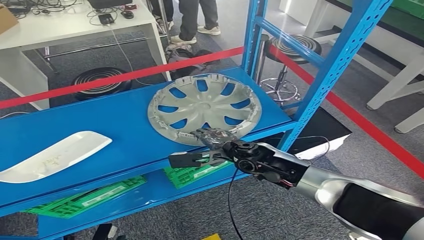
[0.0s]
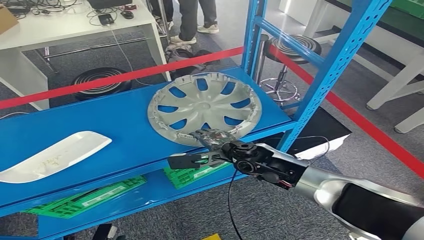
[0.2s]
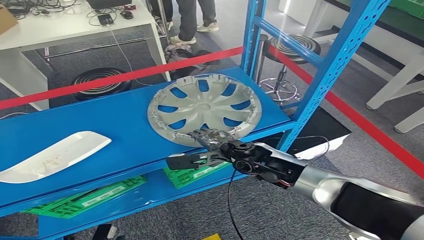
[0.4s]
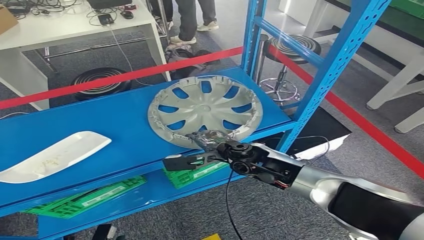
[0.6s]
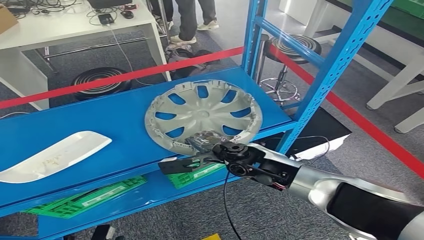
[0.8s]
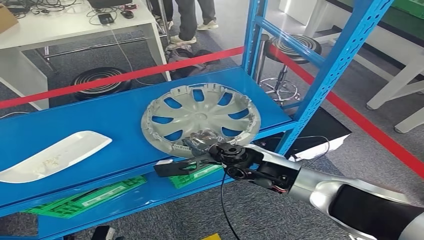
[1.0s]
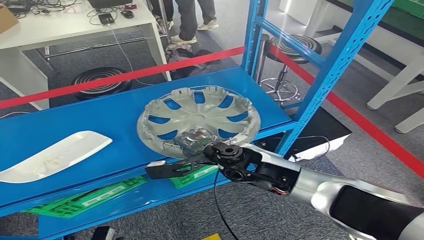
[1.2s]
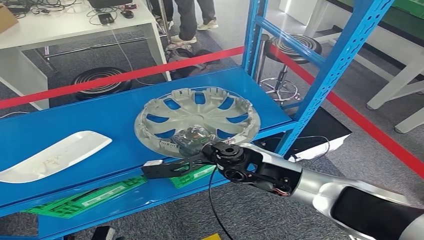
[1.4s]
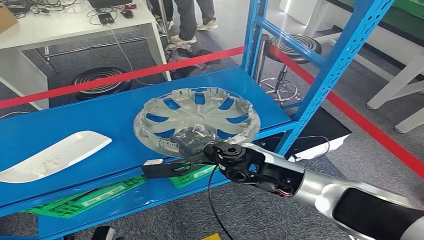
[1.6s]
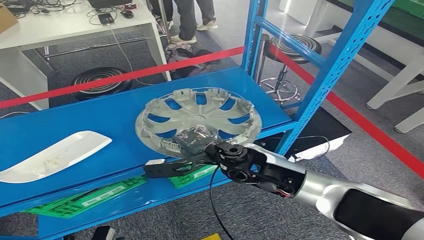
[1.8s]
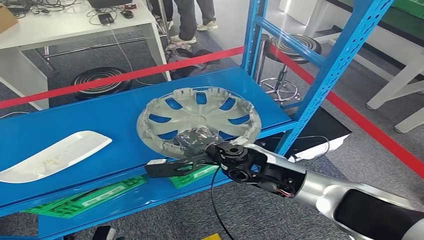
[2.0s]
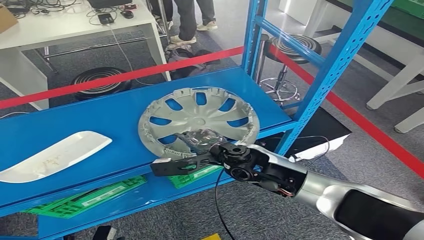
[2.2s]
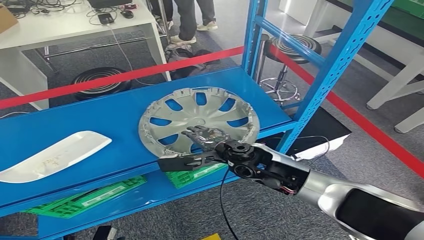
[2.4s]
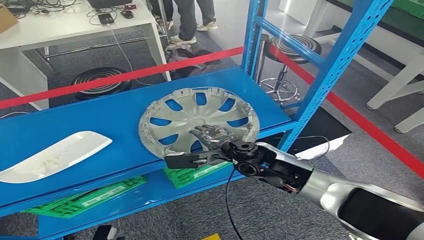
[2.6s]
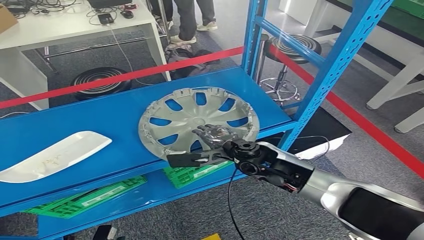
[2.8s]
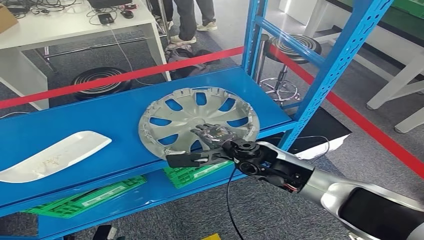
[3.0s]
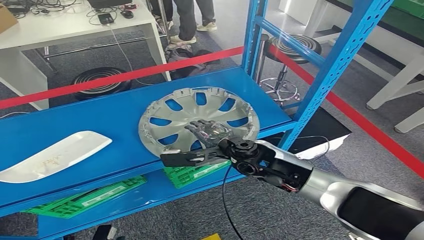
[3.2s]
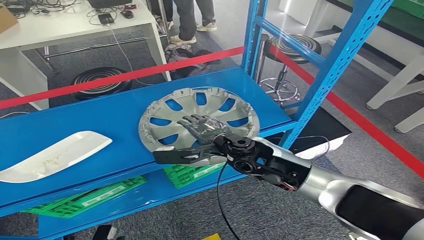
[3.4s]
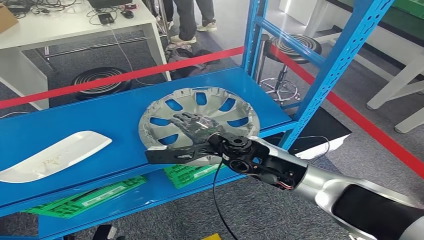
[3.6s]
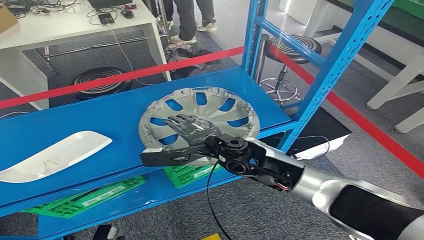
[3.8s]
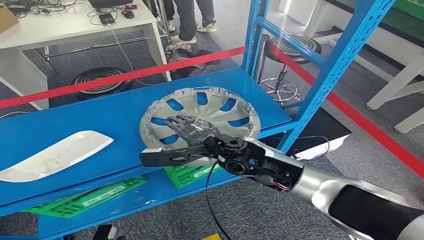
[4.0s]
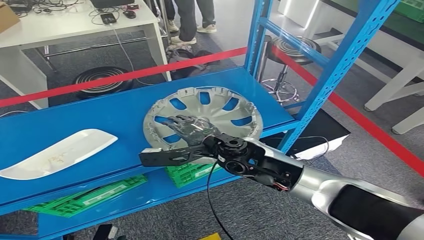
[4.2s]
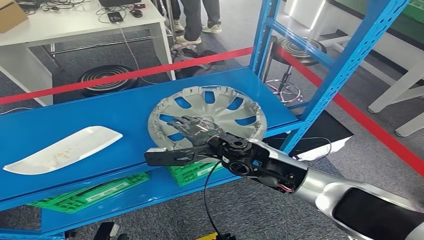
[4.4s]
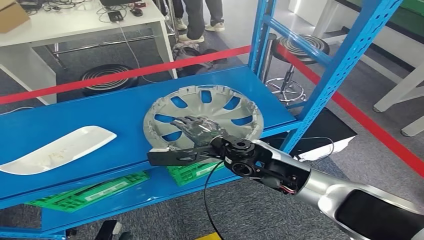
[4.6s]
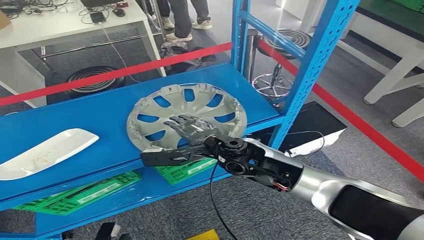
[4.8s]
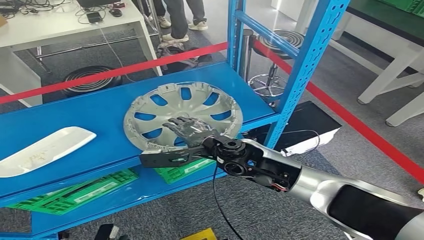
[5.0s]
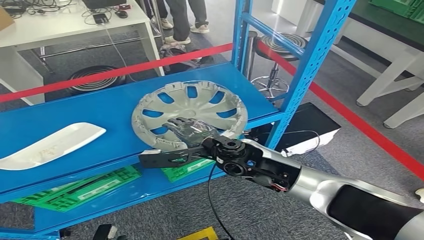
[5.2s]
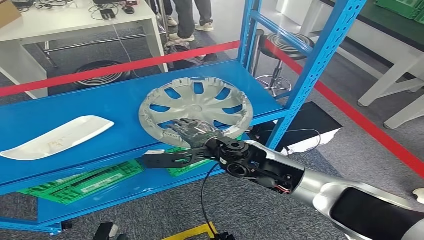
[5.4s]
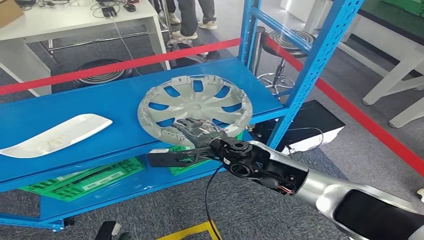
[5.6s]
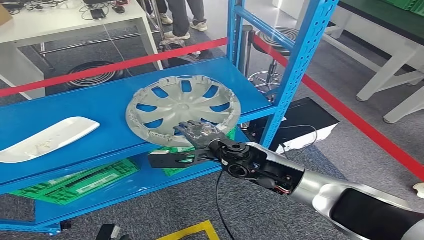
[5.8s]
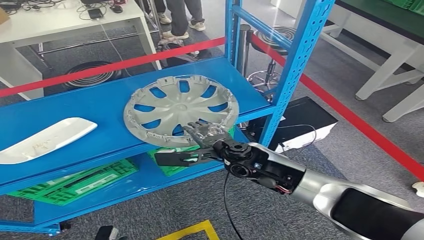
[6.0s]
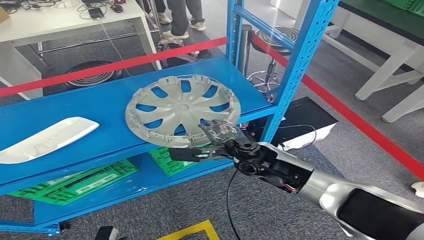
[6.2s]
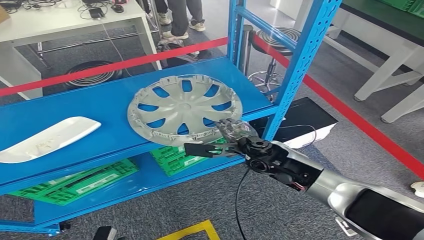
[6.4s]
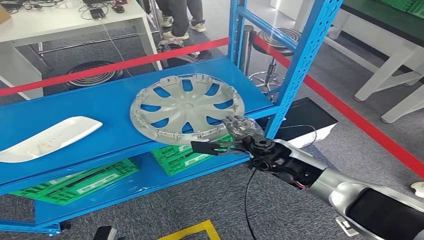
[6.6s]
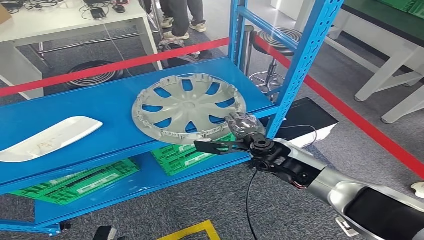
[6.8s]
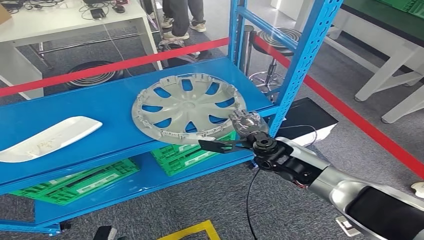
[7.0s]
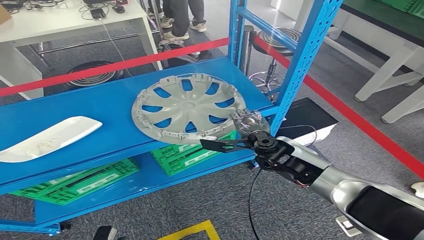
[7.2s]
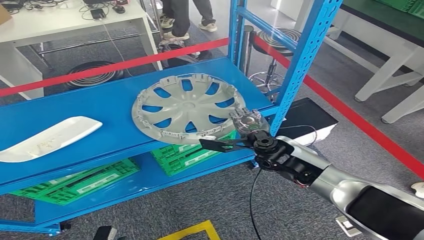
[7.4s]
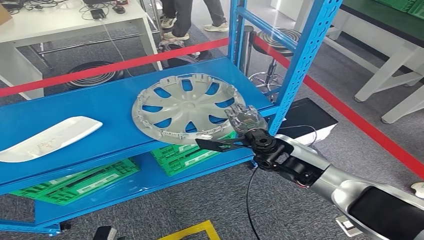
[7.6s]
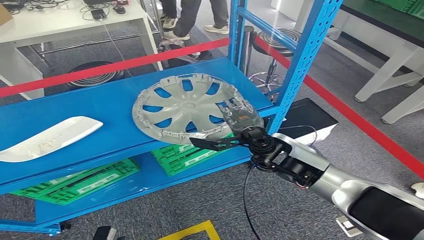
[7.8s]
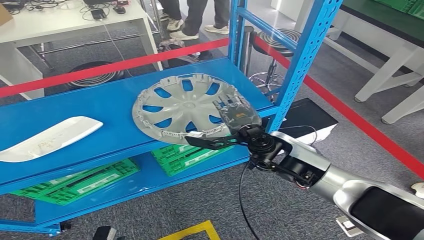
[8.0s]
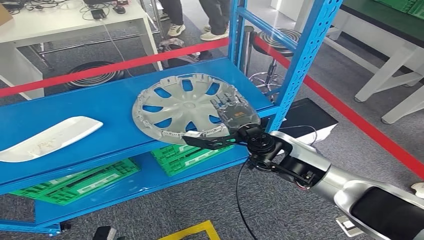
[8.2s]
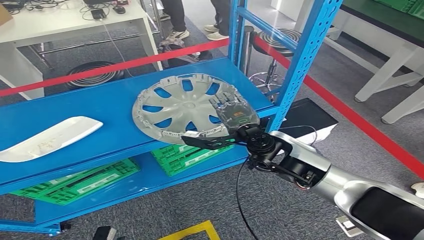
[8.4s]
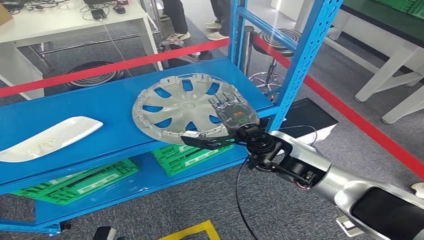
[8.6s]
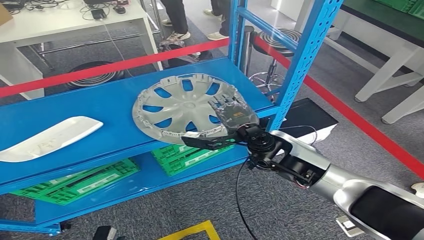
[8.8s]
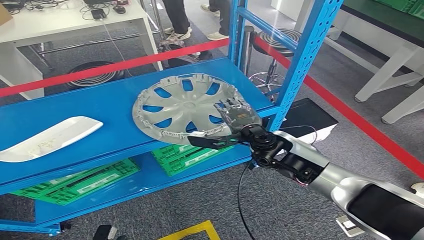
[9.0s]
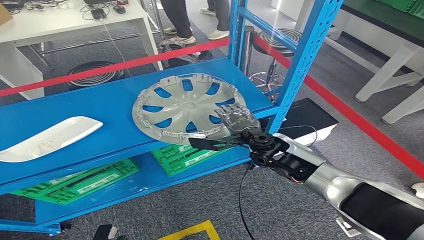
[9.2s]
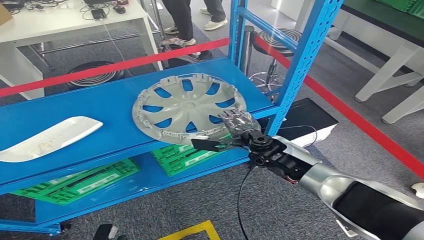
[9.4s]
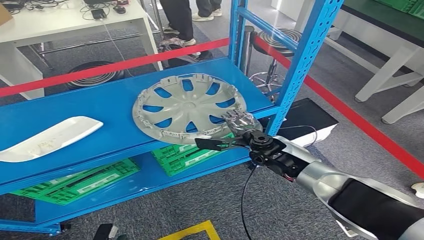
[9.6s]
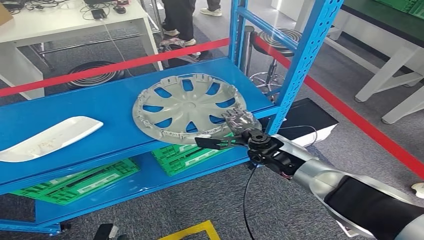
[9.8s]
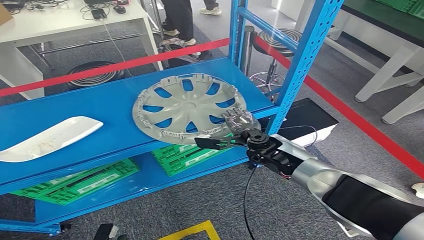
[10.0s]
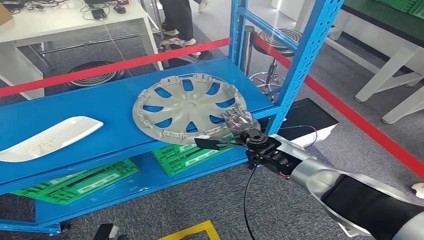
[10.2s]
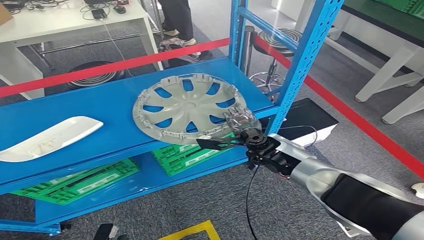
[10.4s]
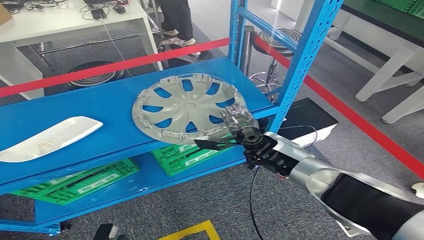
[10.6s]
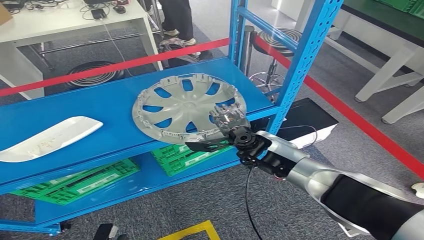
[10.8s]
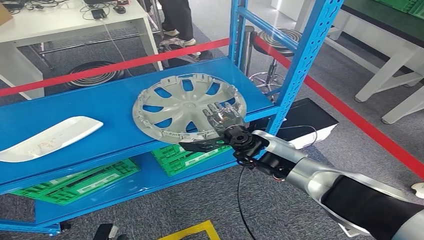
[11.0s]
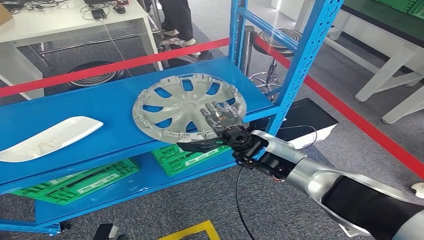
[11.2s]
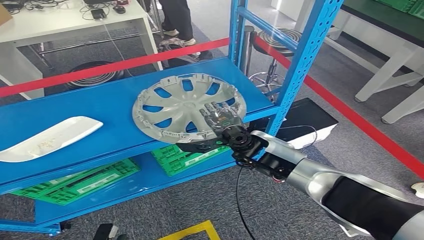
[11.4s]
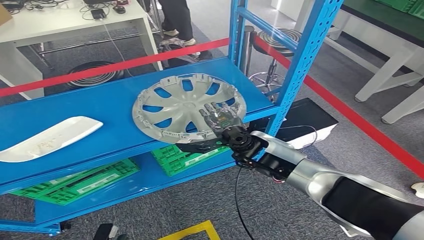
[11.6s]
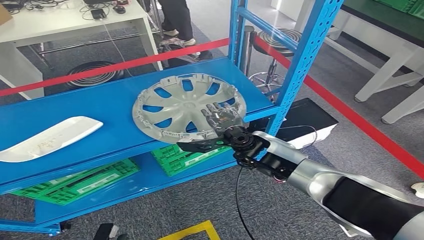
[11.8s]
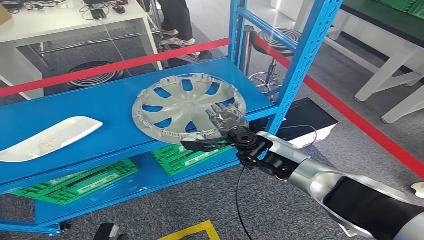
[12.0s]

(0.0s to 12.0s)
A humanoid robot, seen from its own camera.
0.0s - 1.6s: The right hand travels upward by some 5 cm.
1.6s - 3.0s: The right hand moves some 5 cm.
7.6s - 9.0s: The hands stay close to where they were, moving slightly.
9.0s - 10.4s: The right hand is displaced downward by some 5 cm.

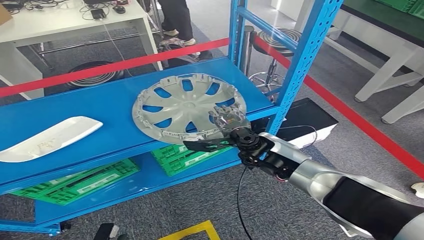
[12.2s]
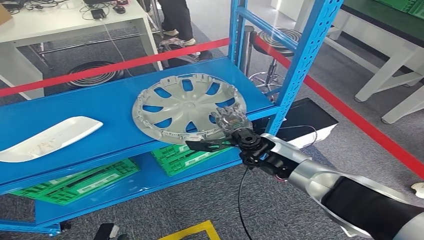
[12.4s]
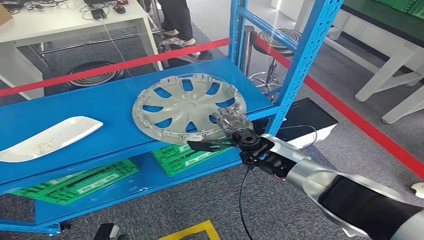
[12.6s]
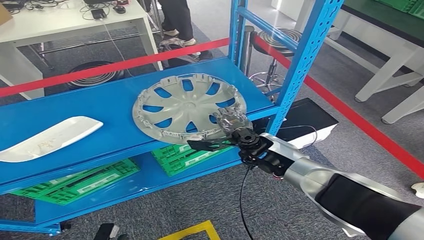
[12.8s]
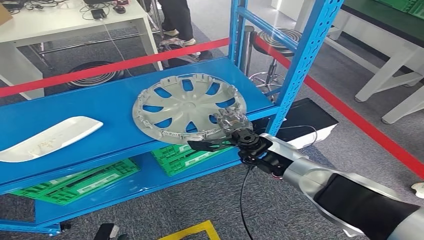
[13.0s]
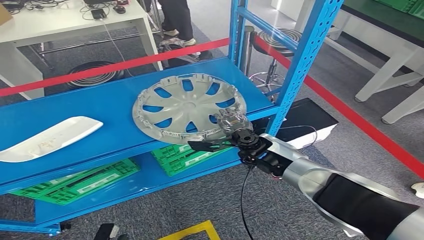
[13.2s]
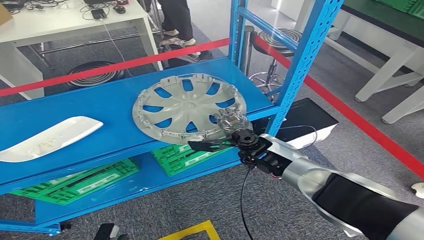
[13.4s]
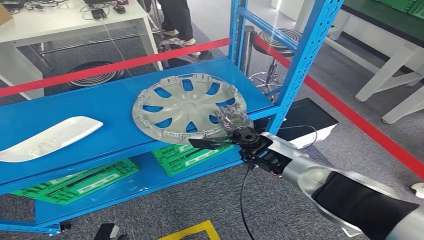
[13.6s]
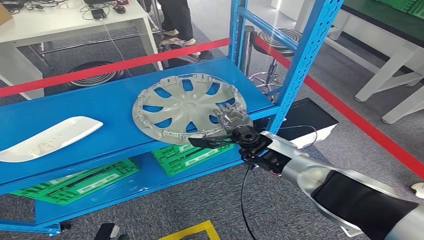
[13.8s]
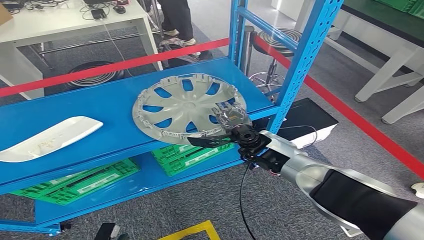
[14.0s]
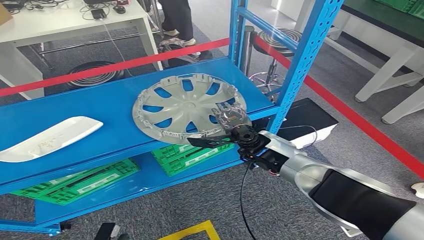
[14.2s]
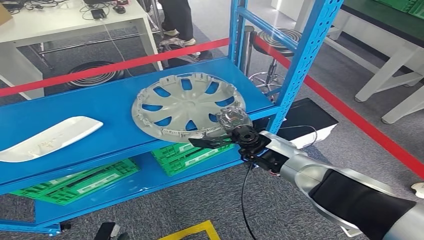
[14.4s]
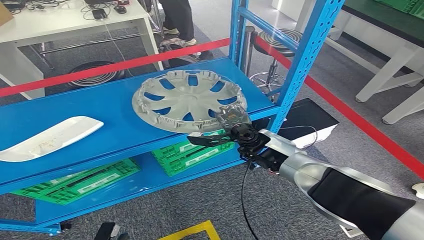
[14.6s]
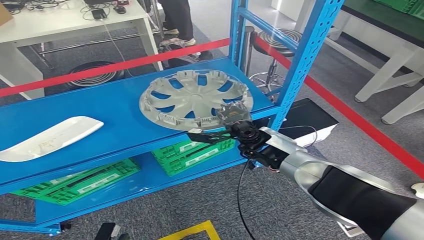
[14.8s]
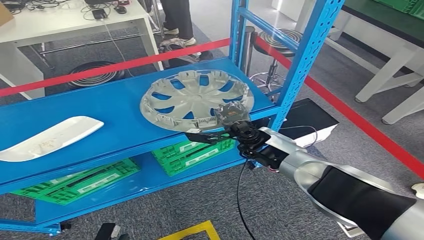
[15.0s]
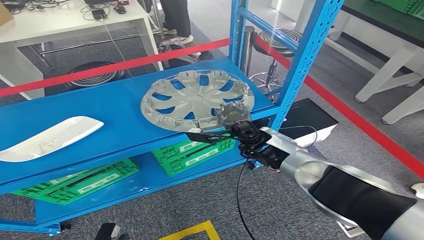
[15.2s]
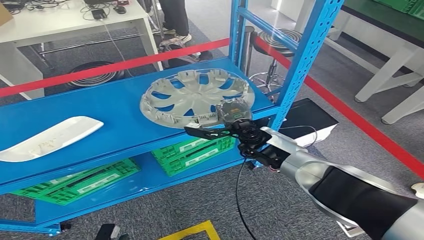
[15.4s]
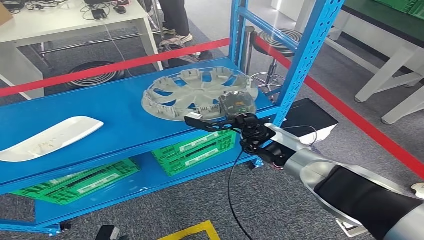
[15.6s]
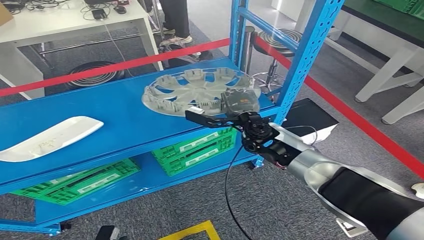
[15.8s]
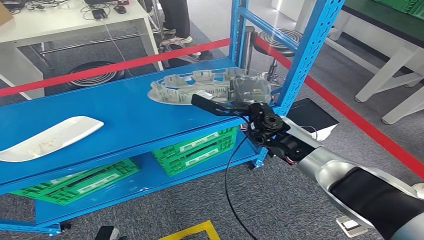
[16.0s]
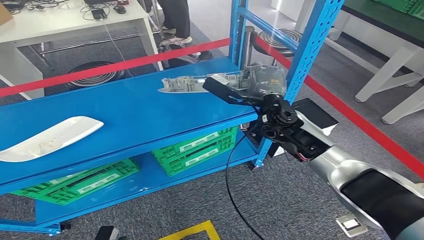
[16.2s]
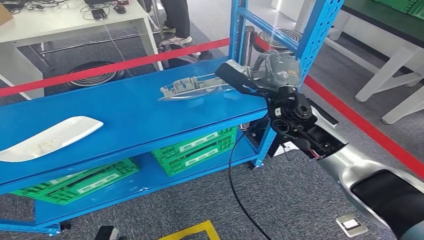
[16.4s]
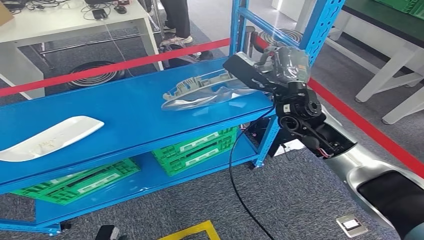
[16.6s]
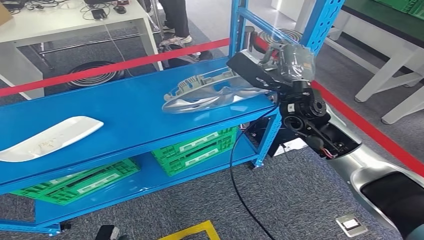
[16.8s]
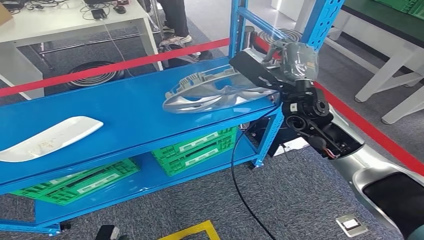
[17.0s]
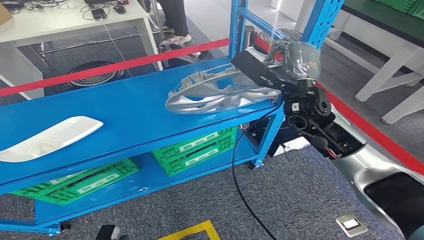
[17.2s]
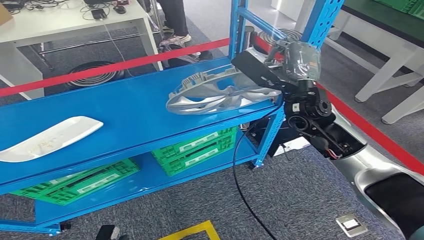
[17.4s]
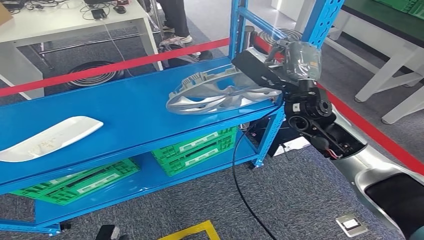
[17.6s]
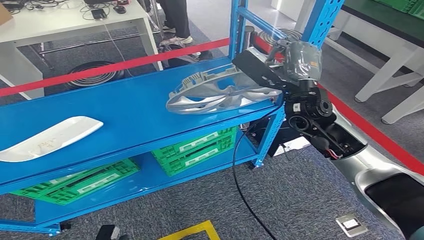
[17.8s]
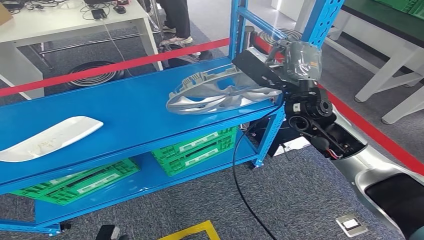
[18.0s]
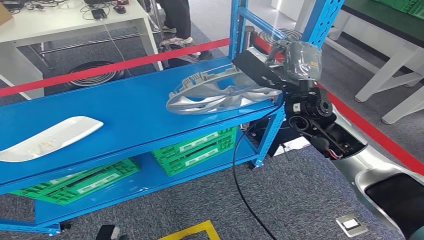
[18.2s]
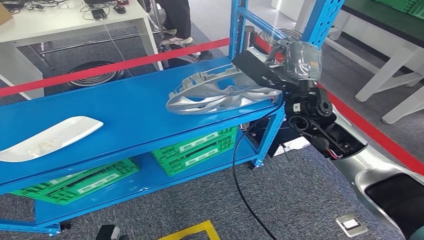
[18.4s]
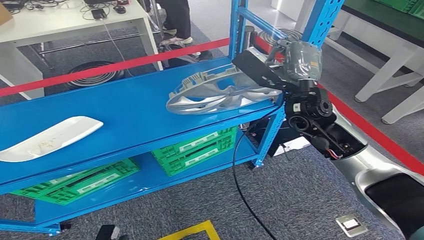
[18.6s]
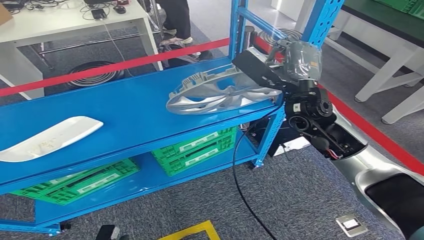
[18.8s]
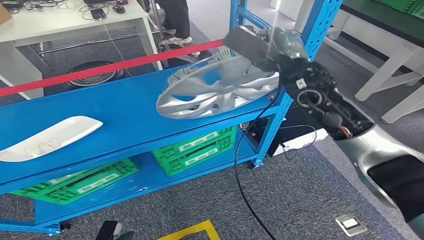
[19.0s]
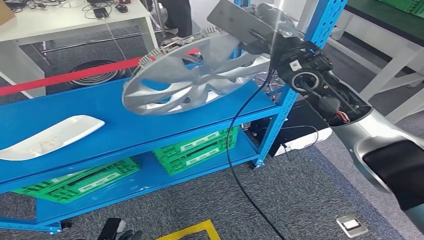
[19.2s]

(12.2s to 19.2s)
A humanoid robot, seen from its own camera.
Step, 12.2s - 17.0s: Pick up the small component from the shelf.
12.2s - 15.0s: The hands make only small movements.
15.0s - 16.4s: The right hand travels upward and to the right by approximately 15 cm.
16.4s - 17.8s: The hands stay close to where they were, moving slightly.
